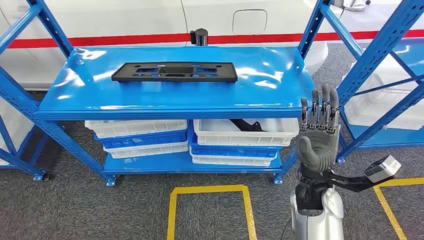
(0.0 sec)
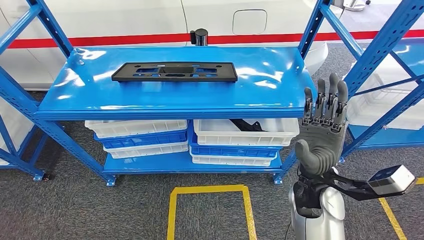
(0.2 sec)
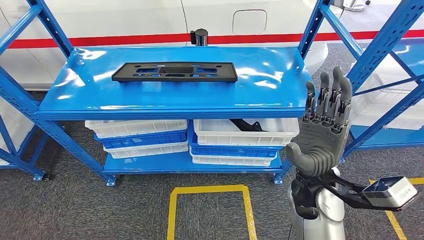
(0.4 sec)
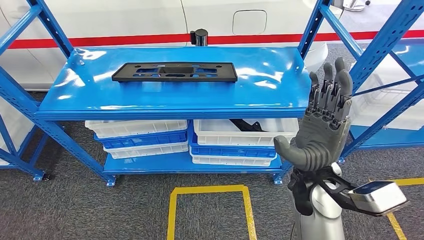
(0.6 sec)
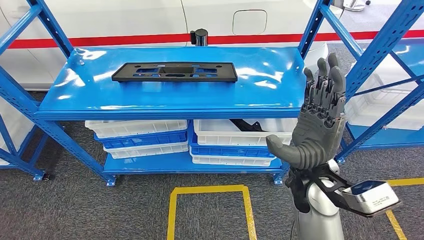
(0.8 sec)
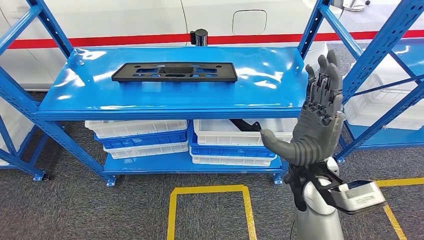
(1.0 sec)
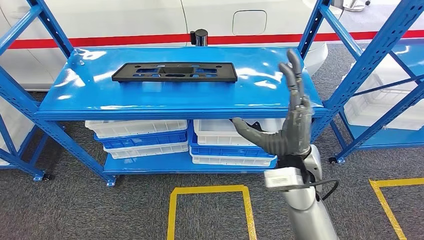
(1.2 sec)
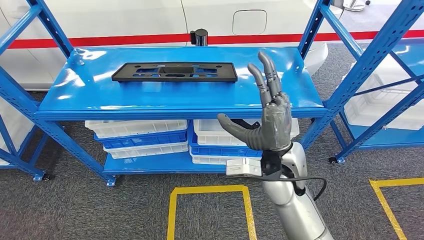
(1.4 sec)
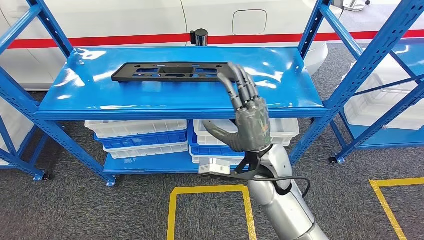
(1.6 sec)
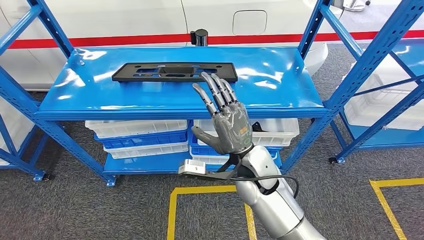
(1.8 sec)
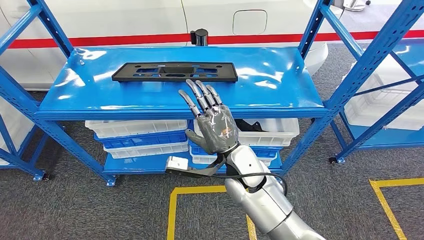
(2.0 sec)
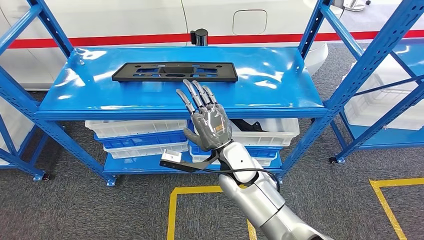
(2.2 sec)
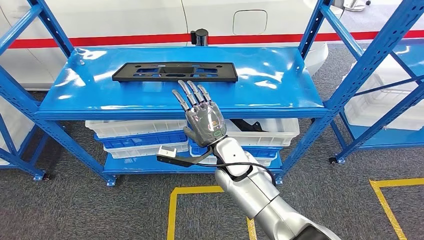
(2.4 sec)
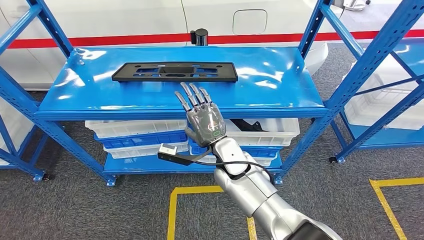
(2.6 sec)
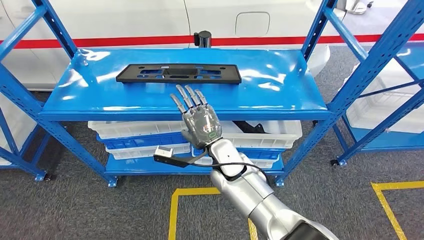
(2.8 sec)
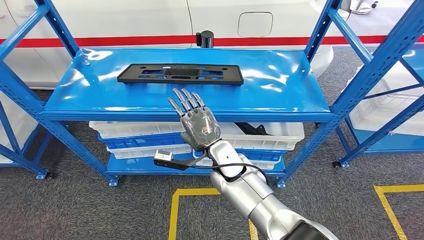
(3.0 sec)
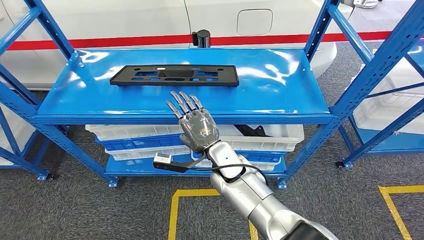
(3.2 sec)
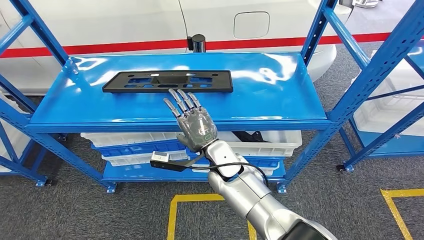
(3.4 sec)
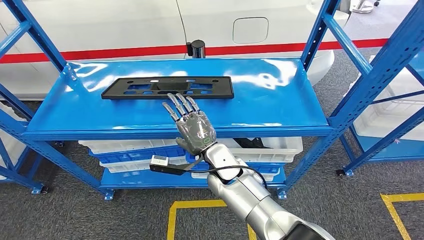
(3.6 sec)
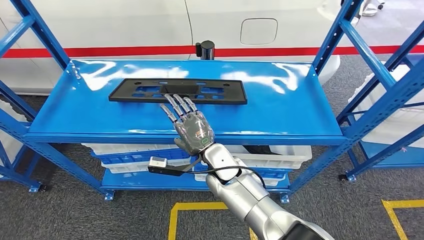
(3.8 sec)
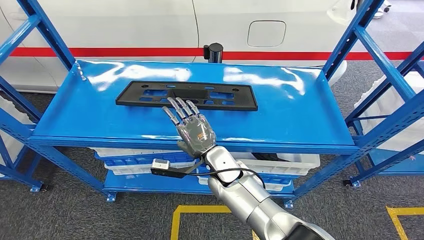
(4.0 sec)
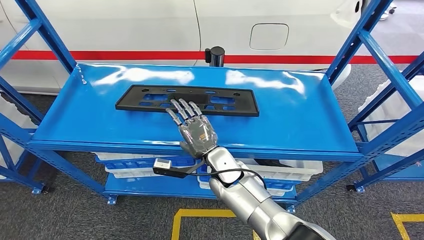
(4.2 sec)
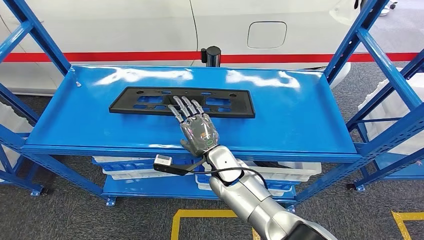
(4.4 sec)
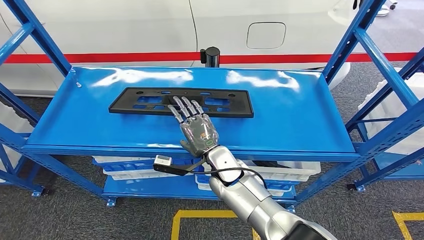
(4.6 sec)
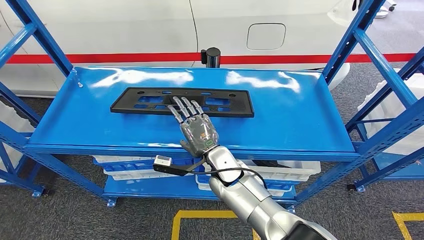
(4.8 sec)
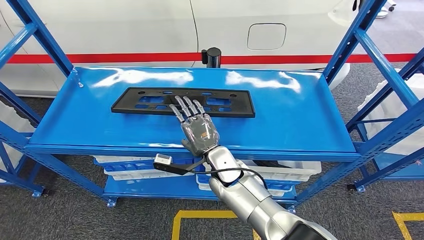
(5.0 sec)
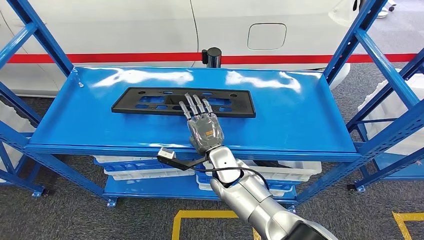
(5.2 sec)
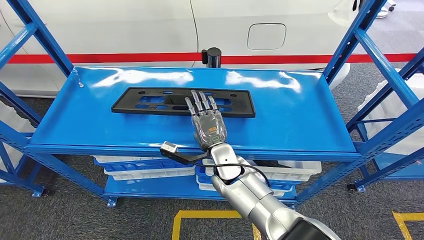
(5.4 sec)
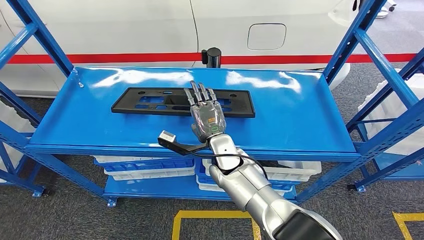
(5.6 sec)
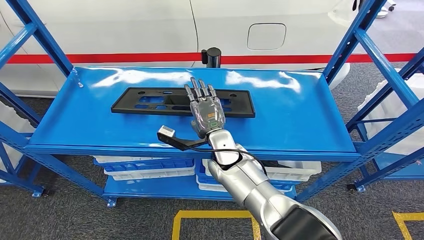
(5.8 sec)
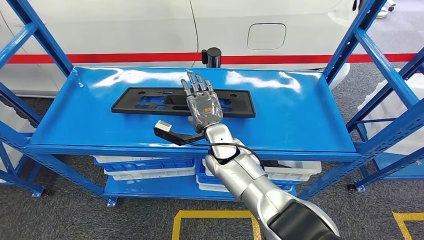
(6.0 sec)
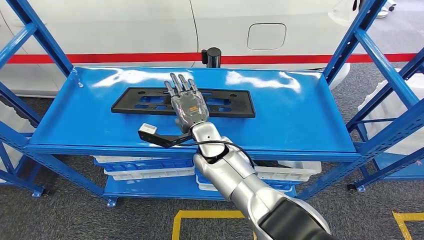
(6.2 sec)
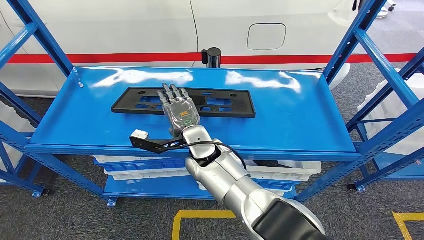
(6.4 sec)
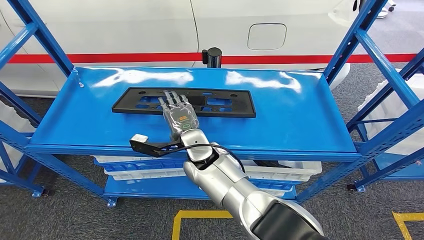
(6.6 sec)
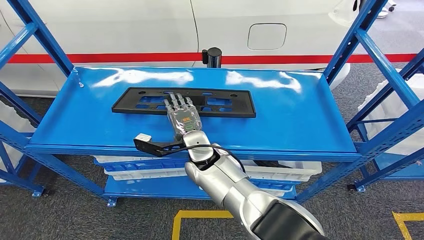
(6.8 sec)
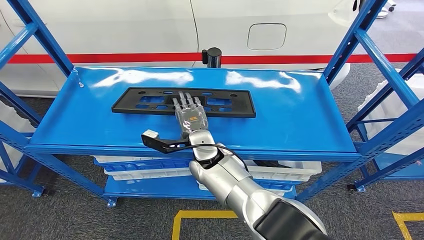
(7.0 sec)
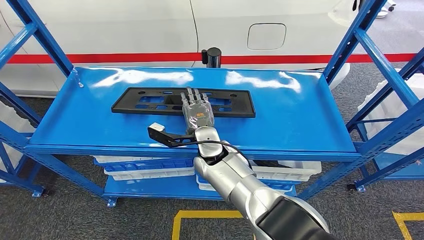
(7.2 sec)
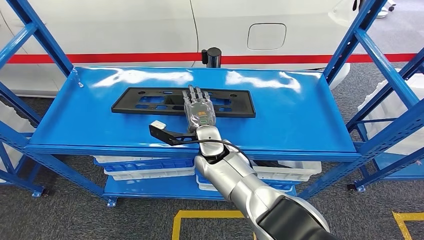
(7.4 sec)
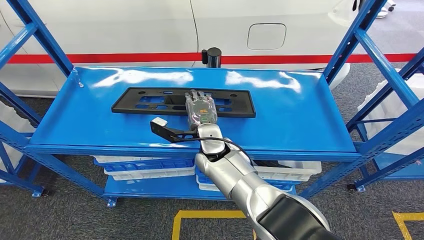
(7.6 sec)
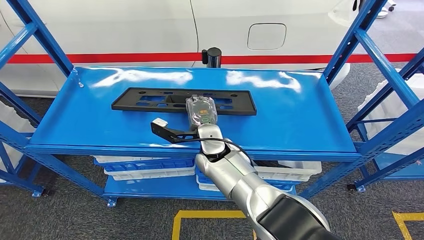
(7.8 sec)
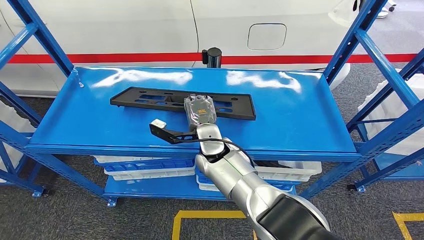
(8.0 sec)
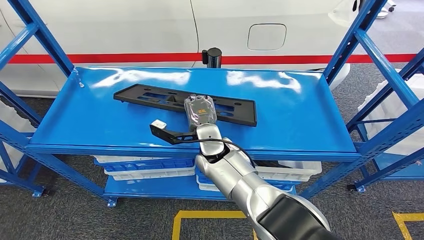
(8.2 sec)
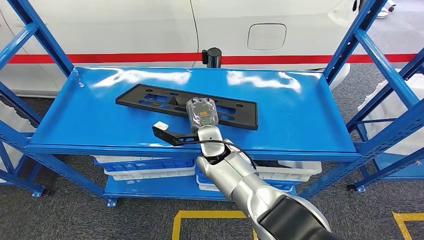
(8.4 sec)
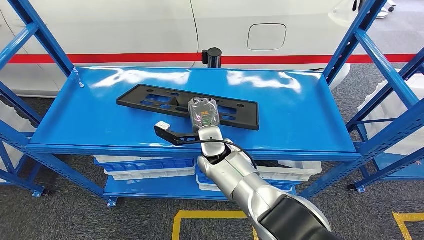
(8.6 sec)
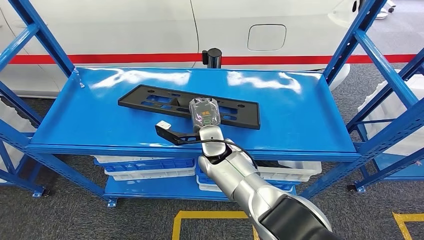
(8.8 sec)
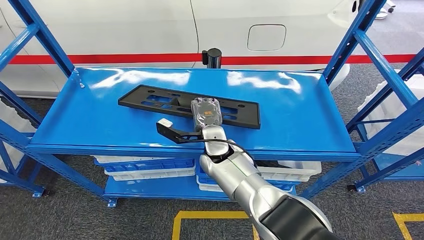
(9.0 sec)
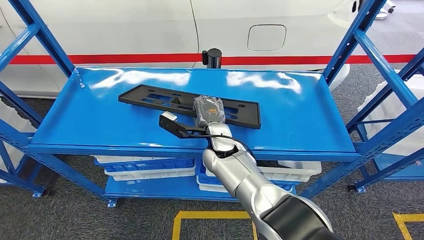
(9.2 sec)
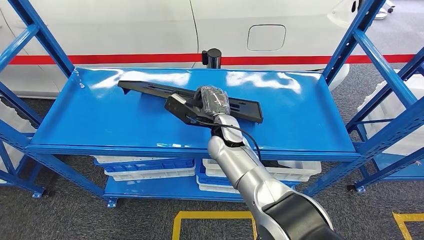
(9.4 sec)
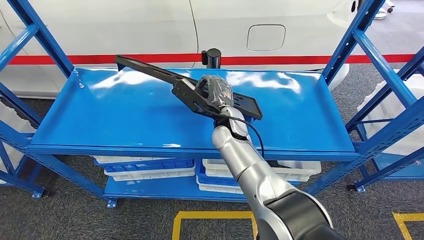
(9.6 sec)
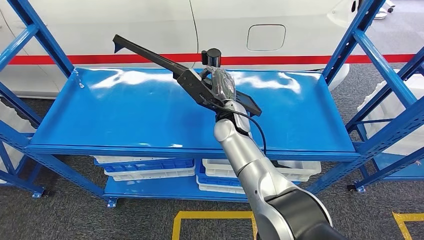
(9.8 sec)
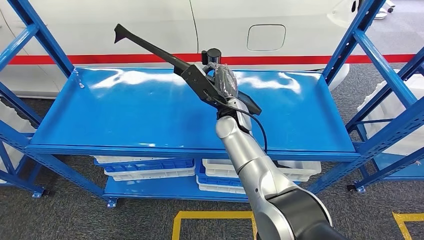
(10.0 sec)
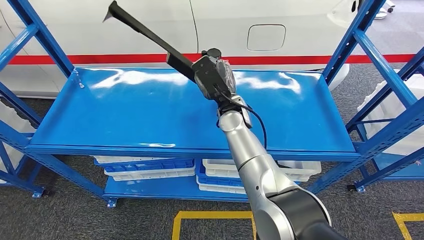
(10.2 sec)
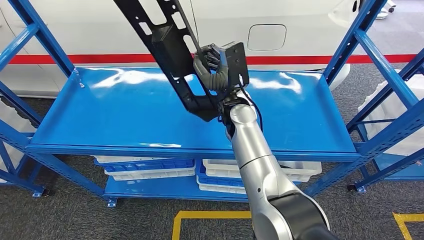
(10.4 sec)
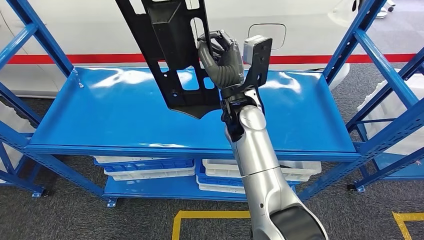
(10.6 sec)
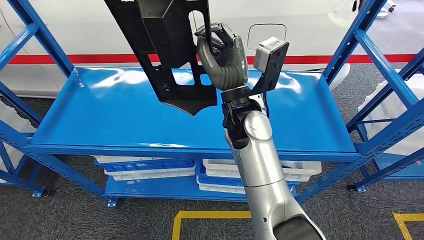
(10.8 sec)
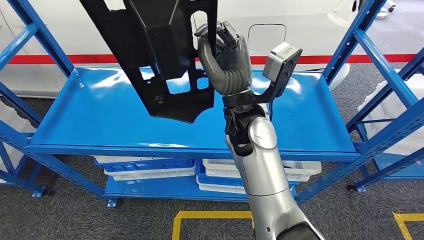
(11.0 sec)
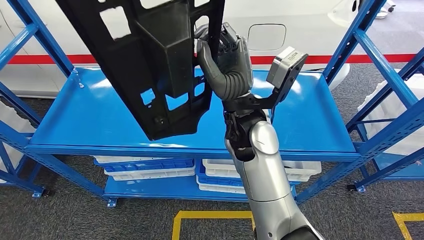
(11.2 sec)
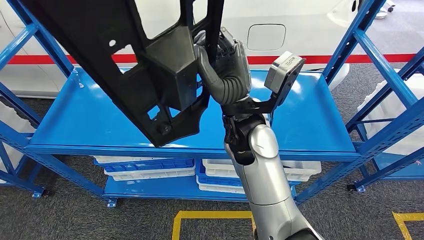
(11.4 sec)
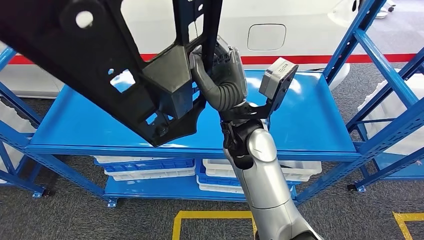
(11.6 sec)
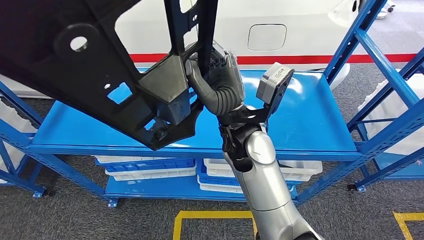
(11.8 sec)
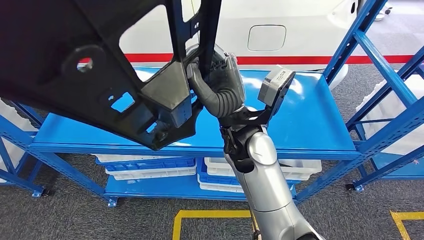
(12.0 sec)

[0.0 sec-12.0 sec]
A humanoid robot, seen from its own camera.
4.4 sec to 6.0 sec: The right hand shifts by approximately 5 cm.
6.0 sec to 7.6 sec: The hands move only a little.
7.6 sec to 9.0 sec: The hands make only small movements.
9.0 sec to 10.4 sec: The right hand travels upward by some 10 cm.

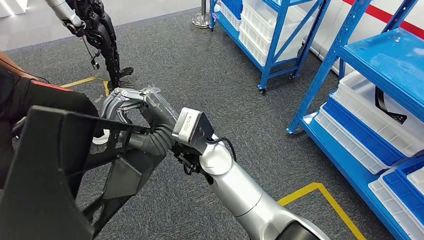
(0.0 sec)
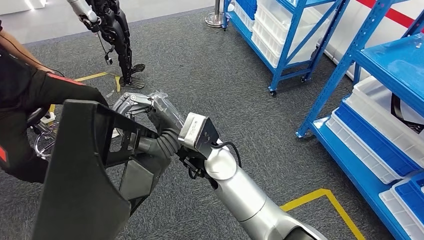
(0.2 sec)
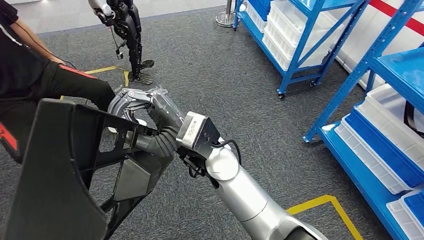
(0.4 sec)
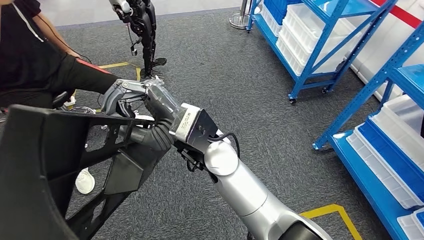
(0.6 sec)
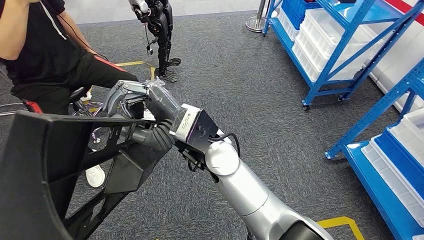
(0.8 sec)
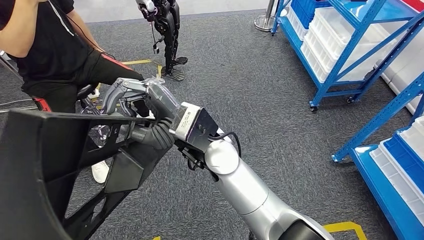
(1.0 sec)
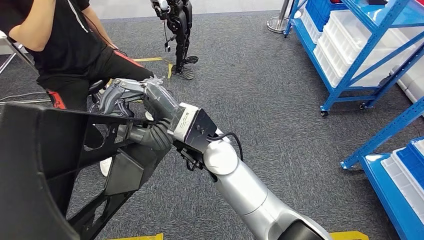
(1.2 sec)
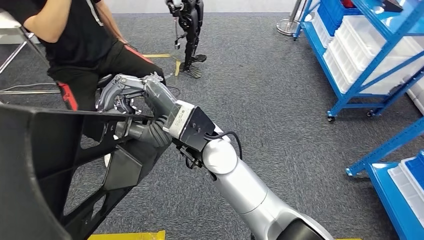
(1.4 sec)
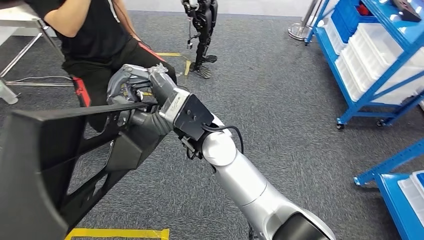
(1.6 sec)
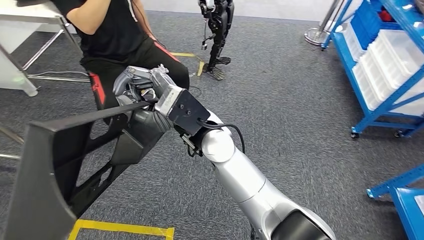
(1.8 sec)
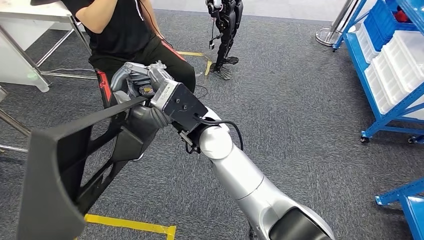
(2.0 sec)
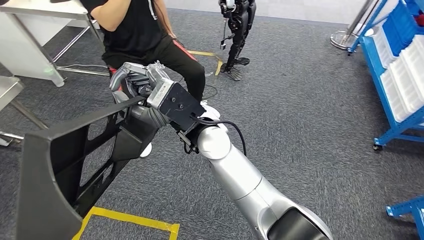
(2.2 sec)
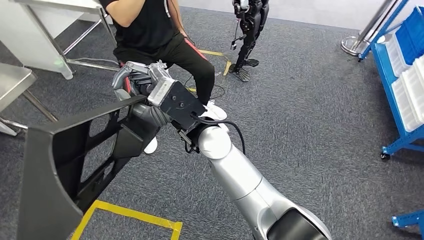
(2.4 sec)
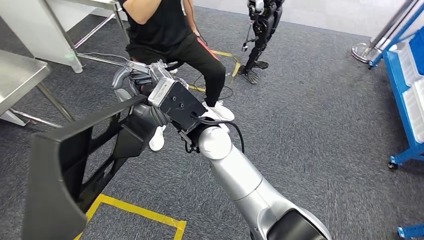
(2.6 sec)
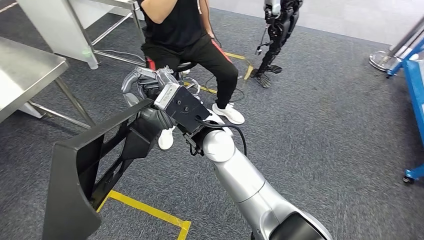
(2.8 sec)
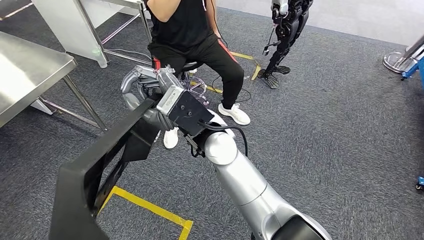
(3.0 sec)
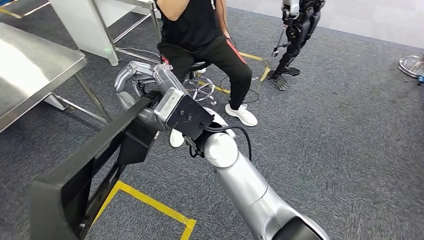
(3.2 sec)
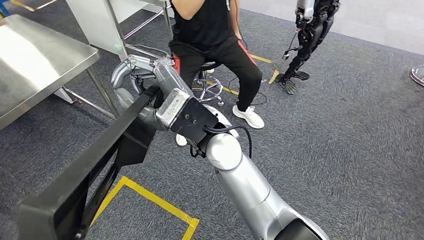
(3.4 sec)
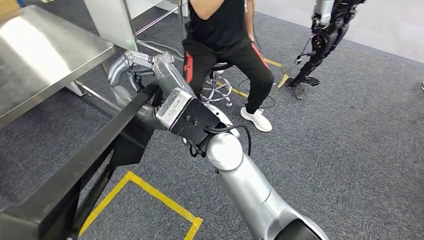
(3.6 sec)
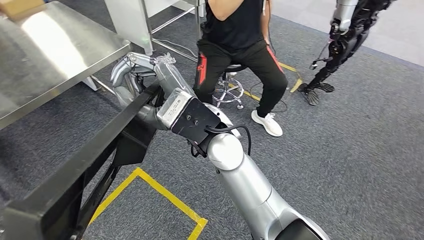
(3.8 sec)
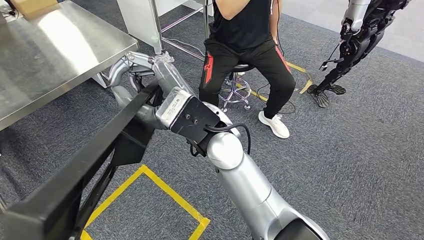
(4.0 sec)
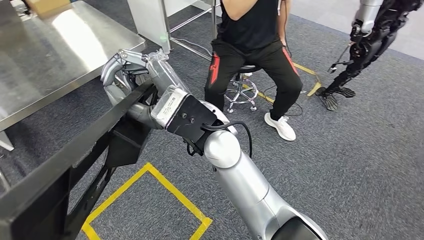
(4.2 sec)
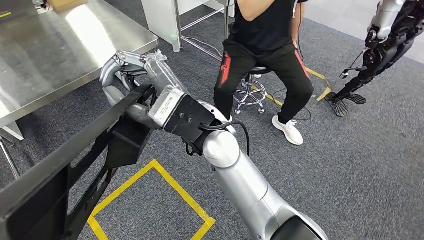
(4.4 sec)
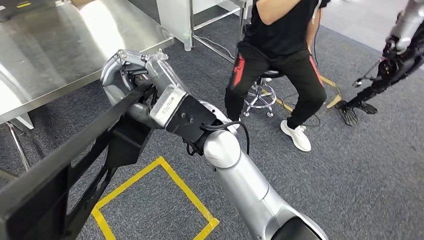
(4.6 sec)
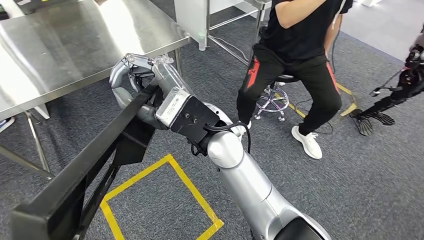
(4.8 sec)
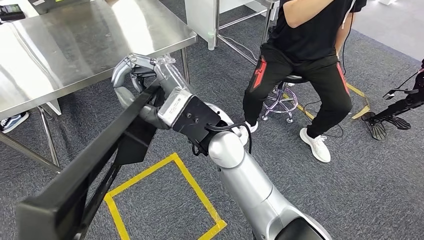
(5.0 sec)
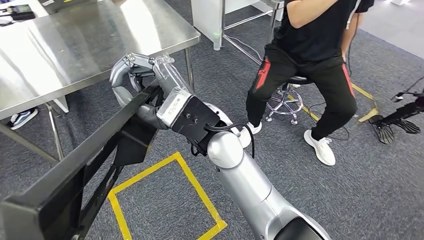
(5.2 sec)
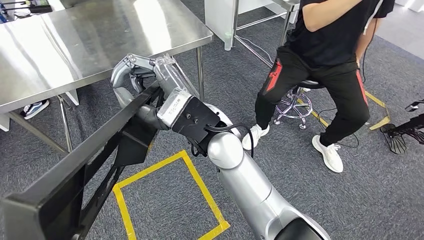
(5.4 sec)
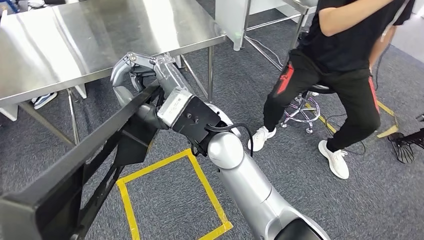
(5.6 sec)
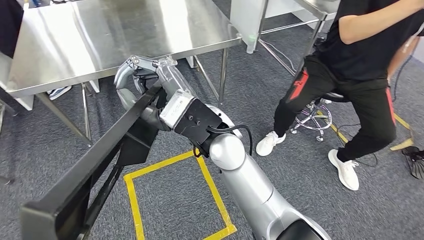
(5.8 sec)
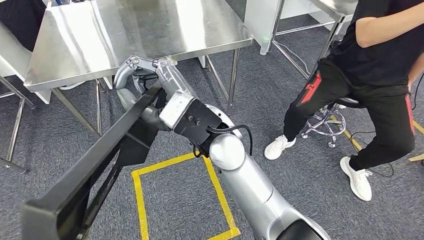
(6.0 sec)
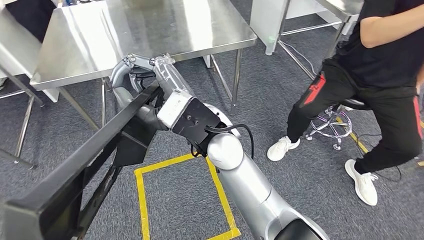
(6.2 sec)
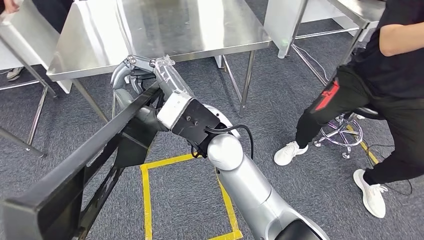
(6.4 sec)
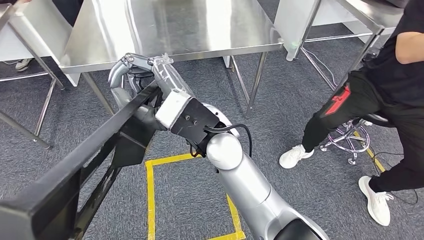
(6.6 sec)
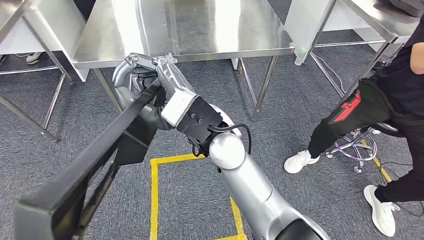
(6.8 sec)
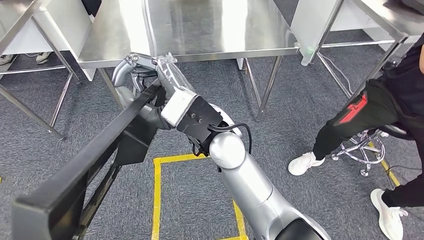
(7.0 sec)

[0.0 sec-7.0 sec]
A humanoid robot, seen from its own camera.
Step, 0.0 sec to 6.8 sec: Move the large material to the workbench.
